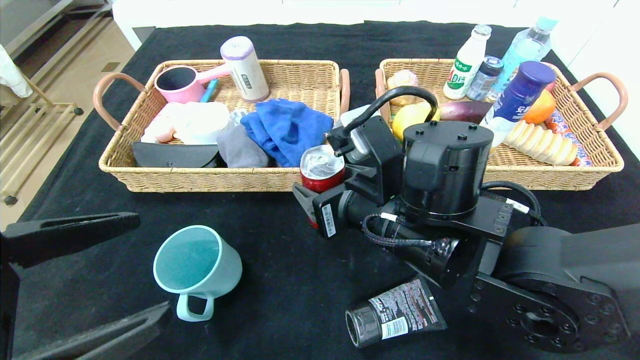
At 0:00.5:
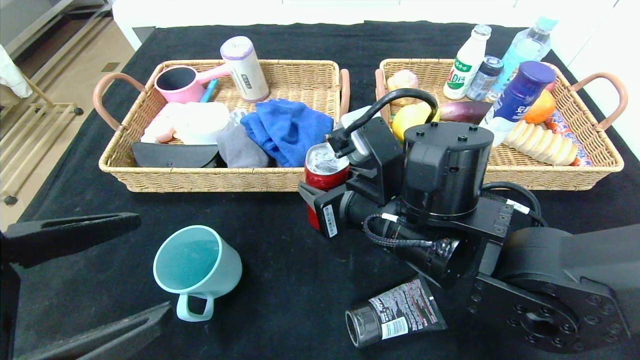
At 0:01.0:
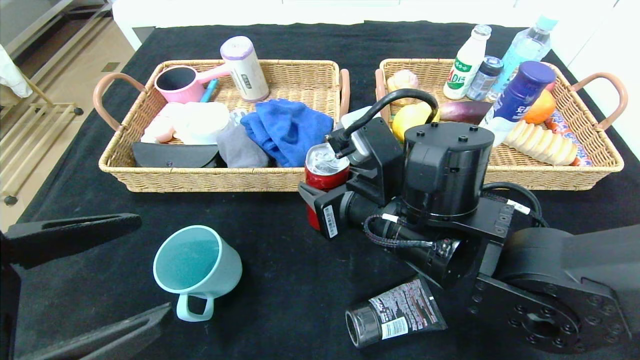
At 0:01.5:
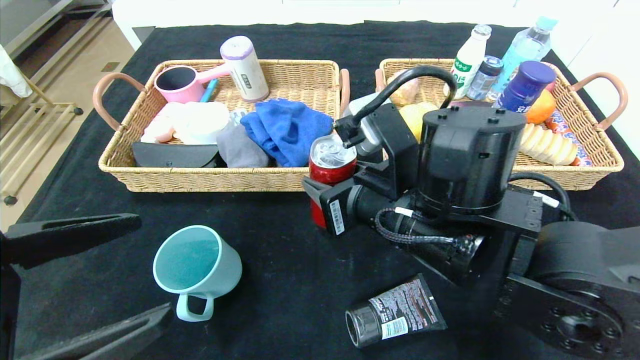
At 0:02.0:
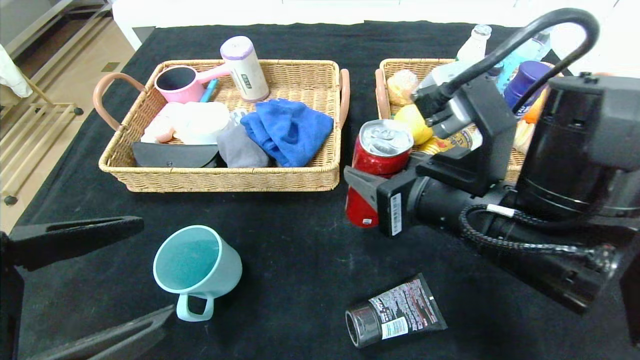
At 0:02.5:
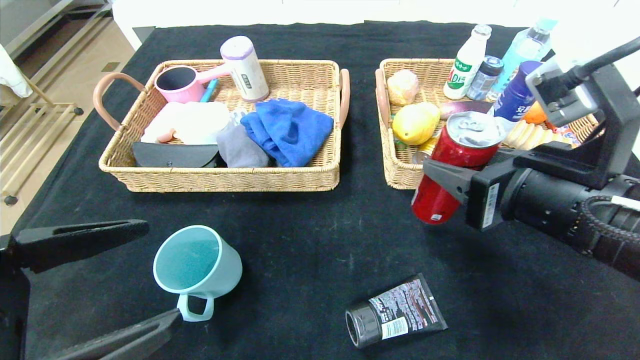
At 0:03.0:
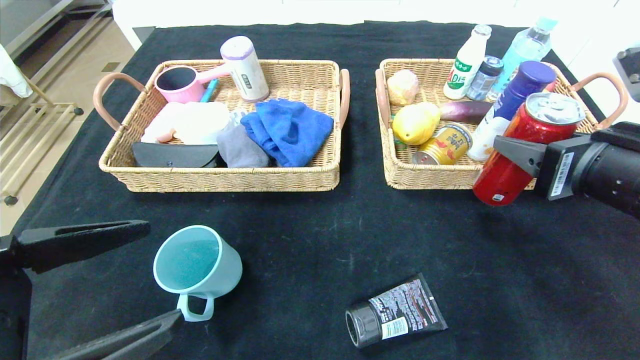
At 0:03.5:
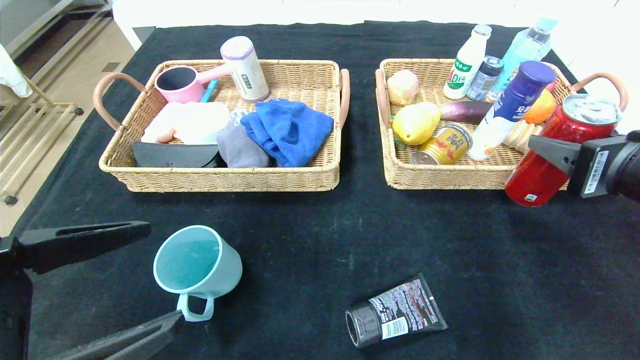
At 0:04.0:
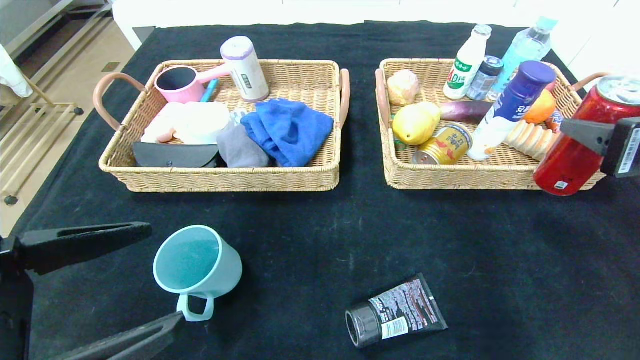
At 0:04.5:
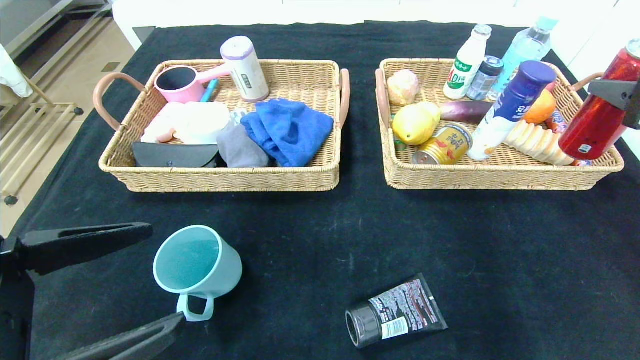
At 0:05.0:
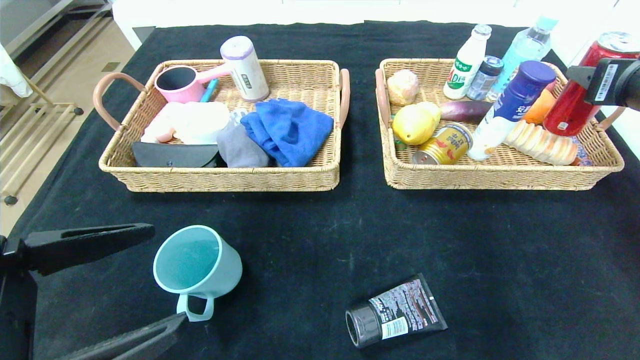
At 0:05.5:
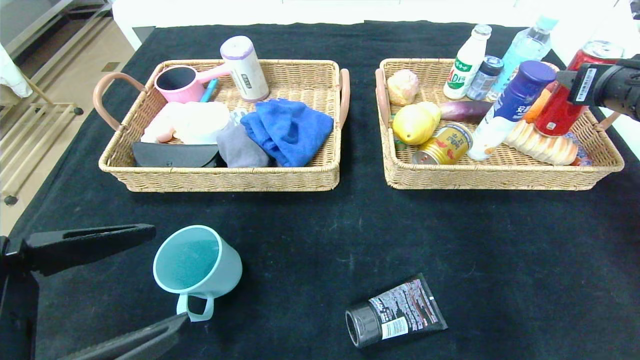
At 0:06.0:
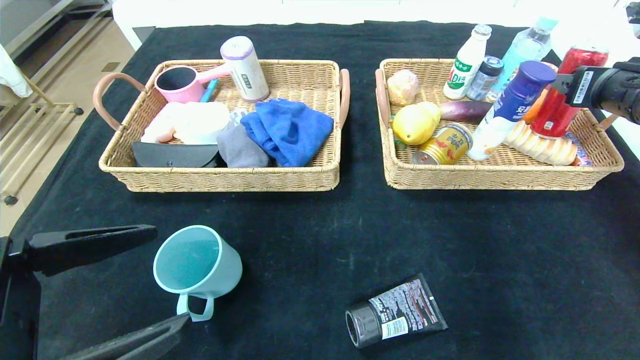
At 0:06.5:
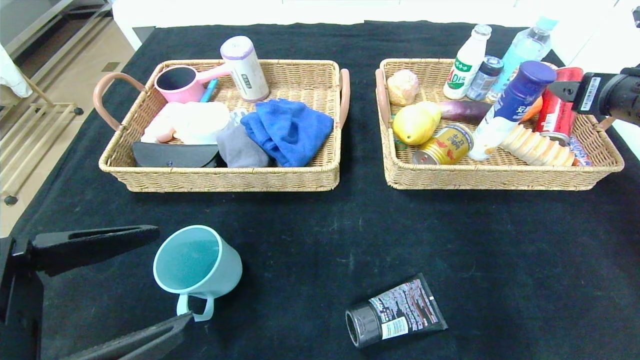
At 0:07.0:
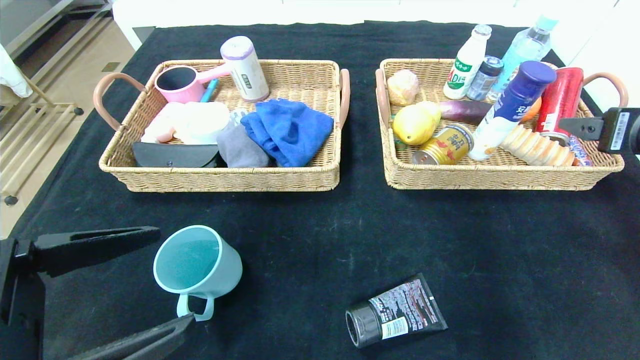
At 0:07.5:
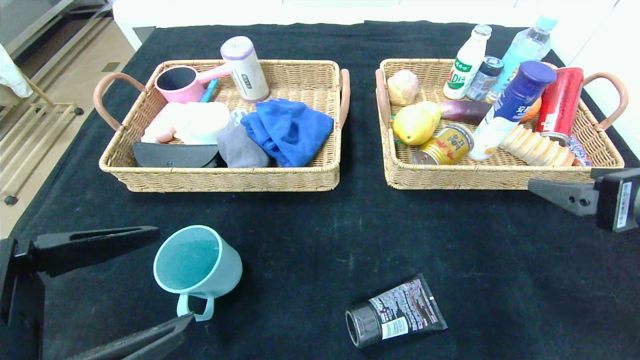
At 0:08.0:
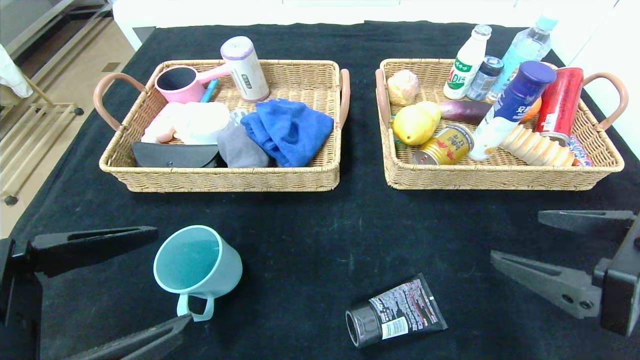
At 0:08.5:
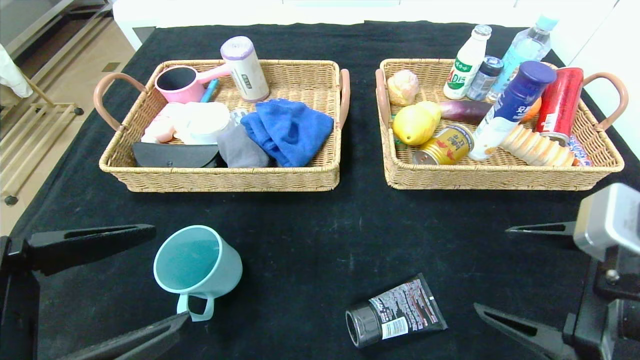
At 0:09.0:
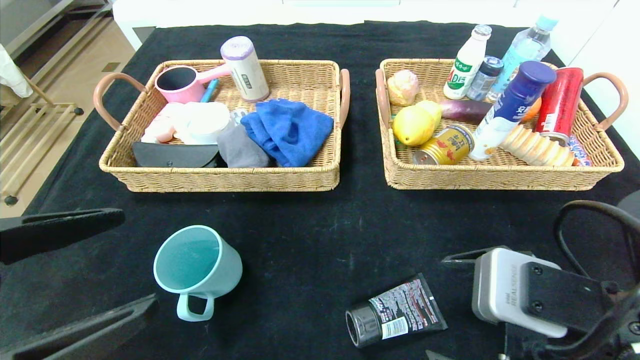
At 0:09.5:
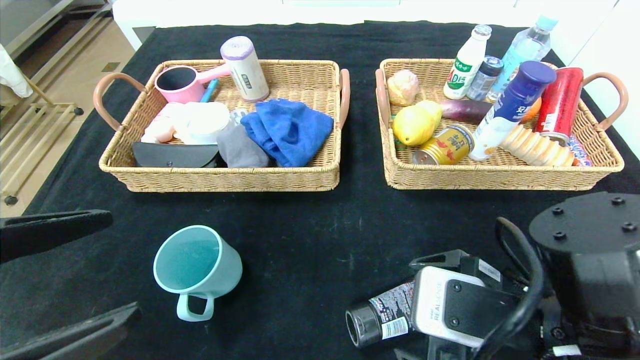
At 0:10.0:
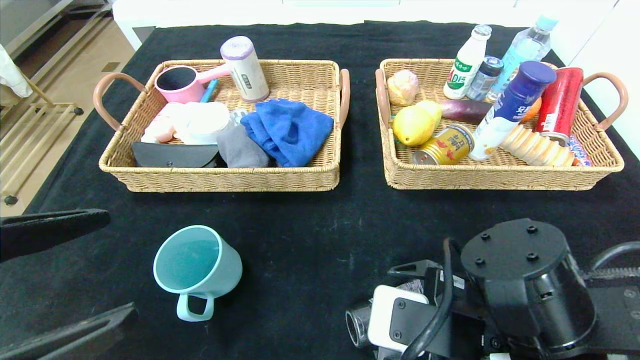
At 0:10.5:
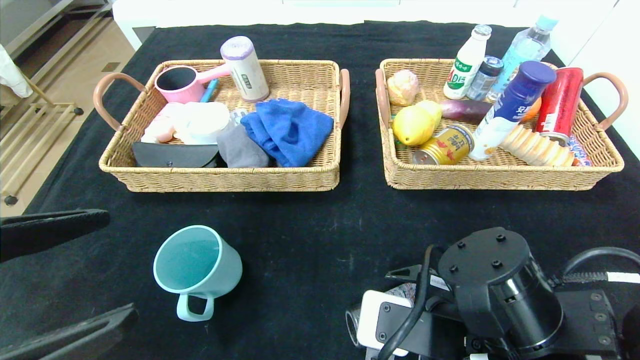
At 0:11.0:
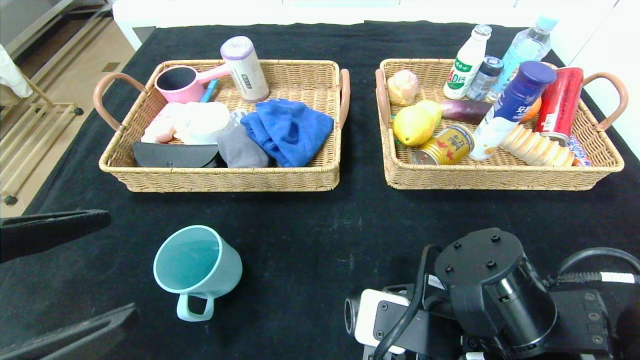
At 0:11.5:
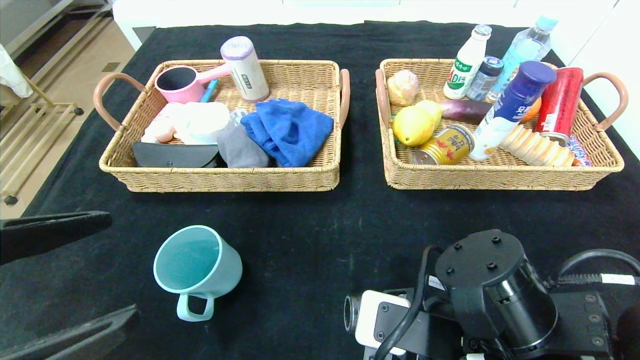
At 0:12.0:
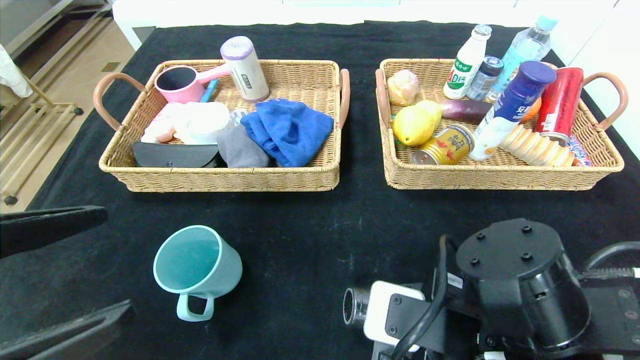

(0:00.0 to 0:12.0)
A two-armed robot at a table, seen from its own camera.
Step, 0:00.0 - 0:06.0: Grasp the canned cola and put it in the right basket.
0:00.0 - 0:02.0: The right gripper moves to the right, approximately 5 cm.
0:02.0 - 0:04.0: The right gripper travels to the right by some 20 cm.
0:04.0 - 0:06.0: The right gripper travels forward and to the right by roughly 15 cm, and opens.
0:06.0 - 0:08.0: The right gripper travels backward and to the left by roughly 20 cm.
0:08.0 - 0:10.0: The right gripper shifts roughly 15 cm to the left and downward.
0:10.0 - 0:12.0: The right gripper closes its fingers.

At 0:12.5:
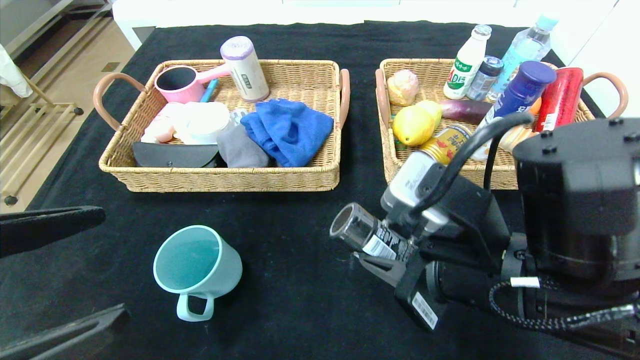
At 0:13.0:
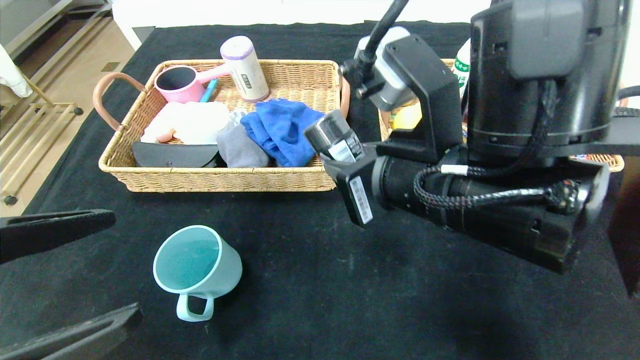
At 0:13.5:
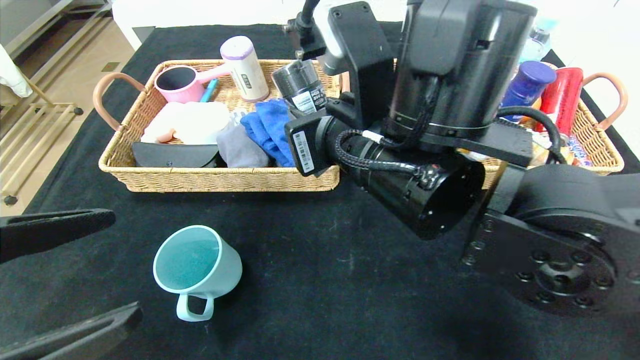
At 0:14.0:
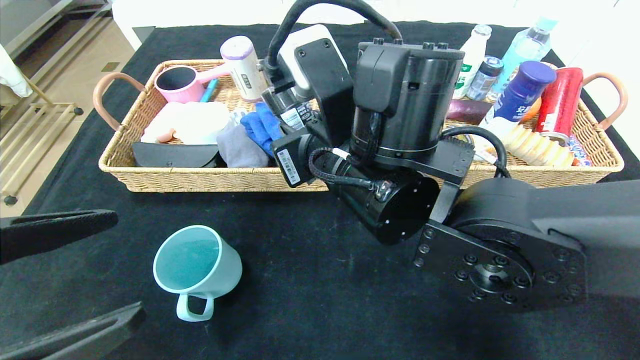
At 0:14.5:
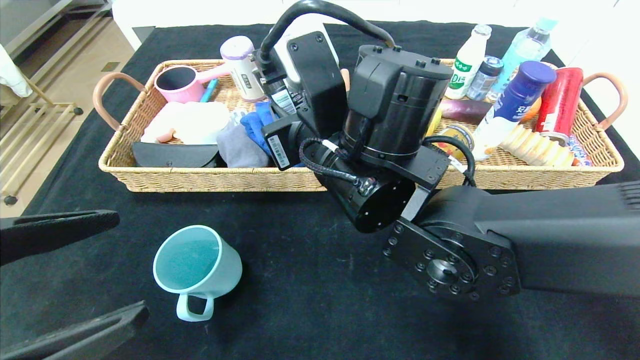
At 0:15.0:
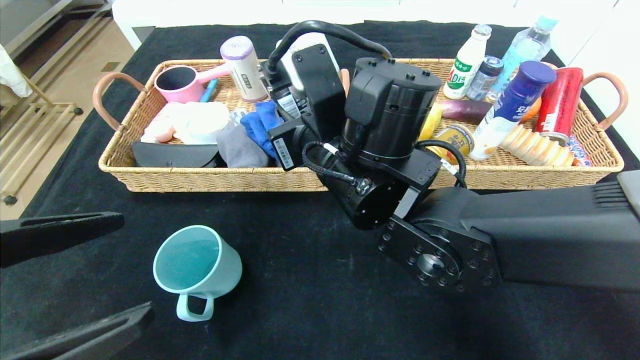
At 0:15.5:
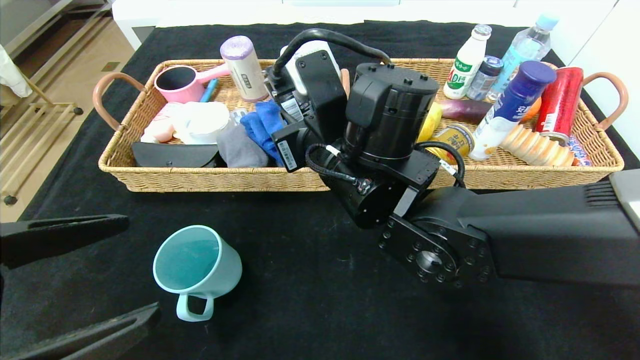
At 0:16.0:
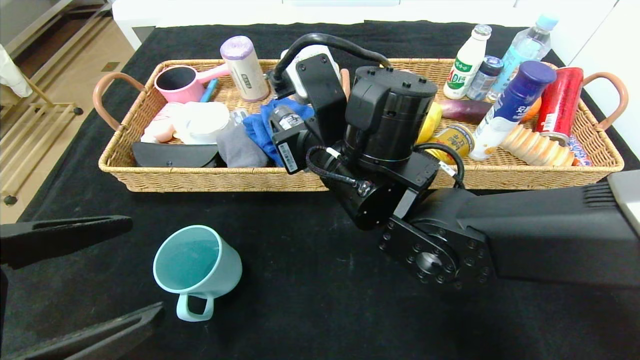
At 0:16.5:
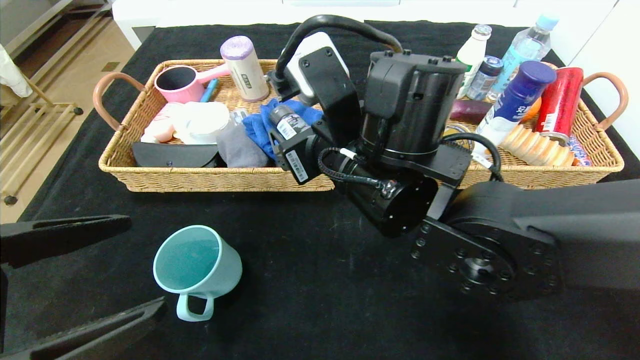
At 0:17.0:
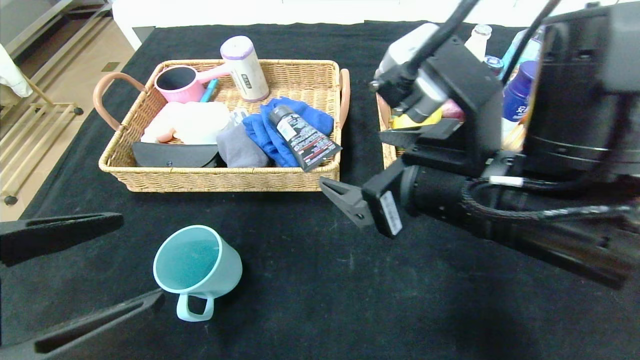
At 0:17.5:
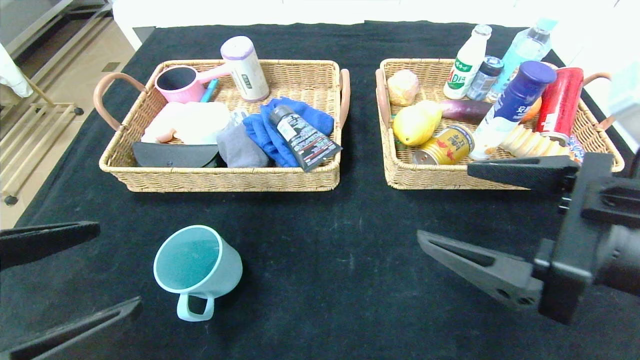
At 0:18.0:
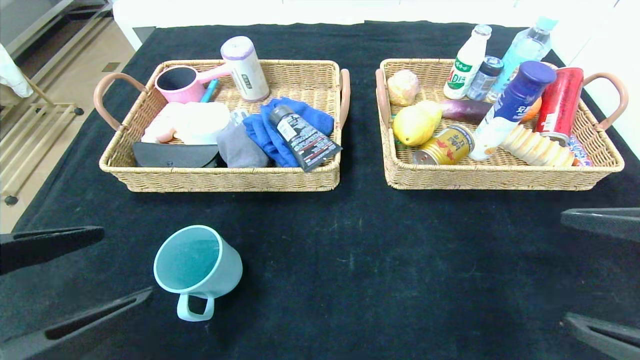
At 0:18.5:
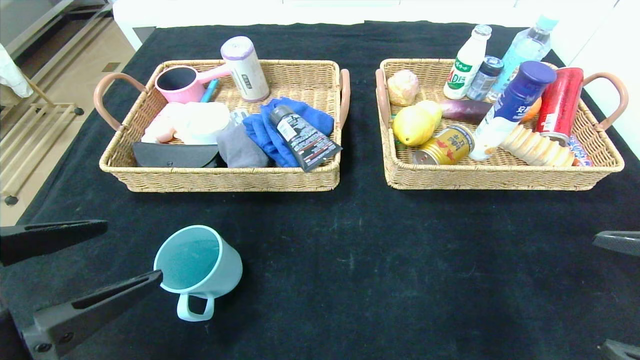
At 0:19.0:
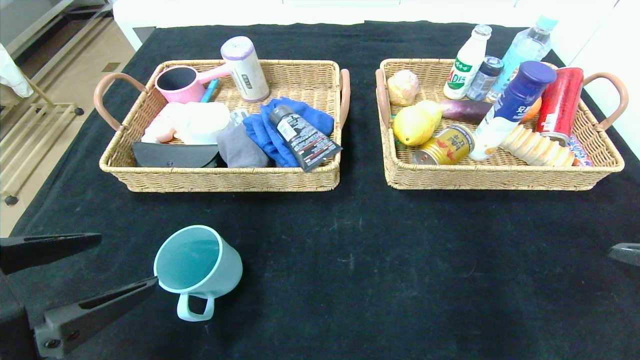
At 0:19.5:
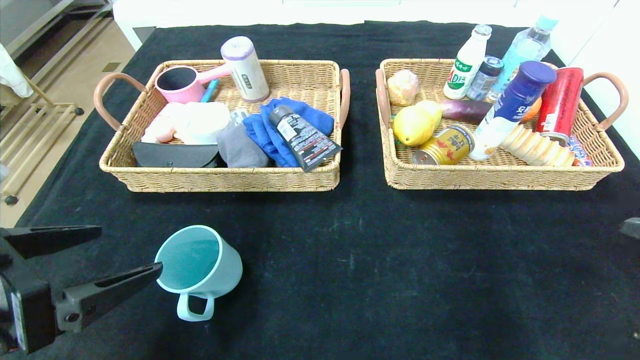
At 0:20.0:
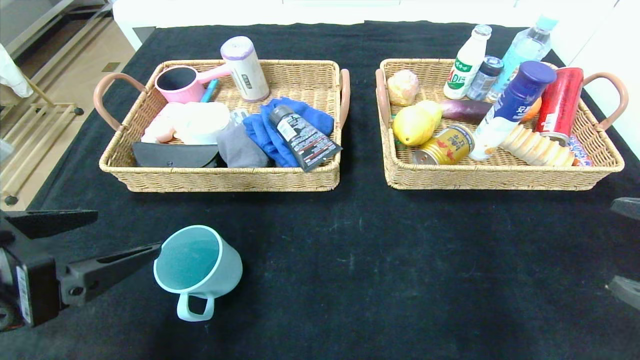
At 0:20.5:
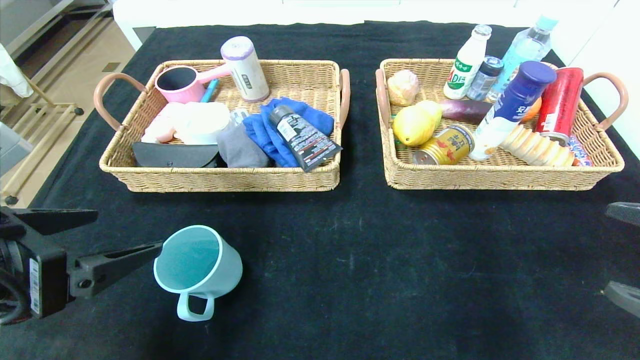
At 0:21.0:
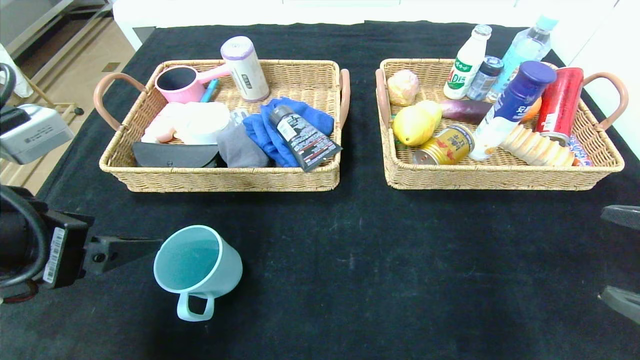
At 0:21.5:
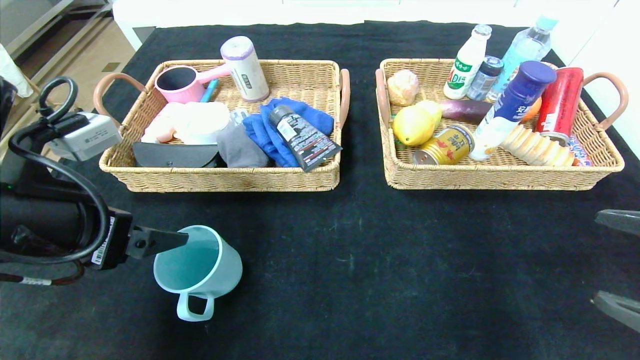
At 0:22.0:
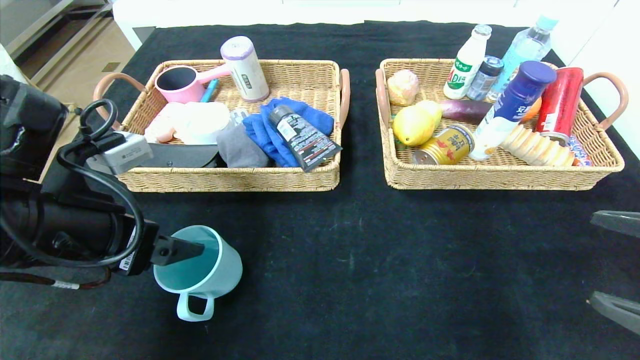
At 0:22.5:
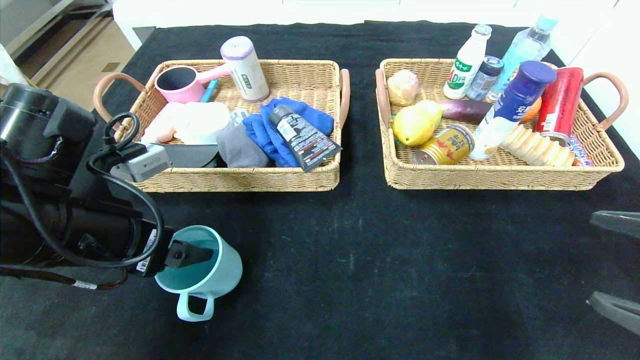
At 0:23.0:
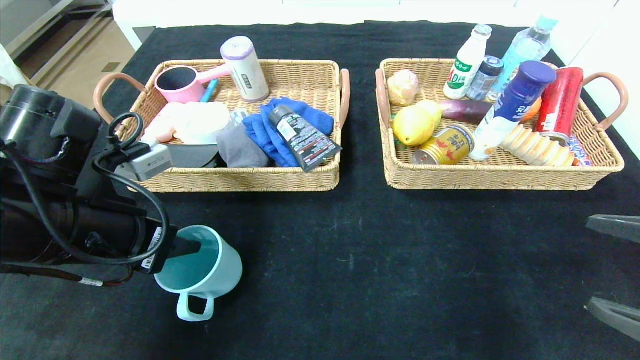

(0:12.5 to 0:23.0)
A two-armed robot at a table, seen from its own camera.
0:12.5 - 0:14.5: The right gripper travels to the left and forward by some 15 cm.
0:14.5 - 0:16.5: The right gripper opens.
0:16.5 - 0:19.0: The right gripper moves to the right and backward, roughly 35 cm.
0:19.0 - 0:21.0: The left gripper shifts roughly 5 cm forward.
0:21.0 - 0:23.0: The left gripper is displaced forward by approximately 5 cm, and closes up.
